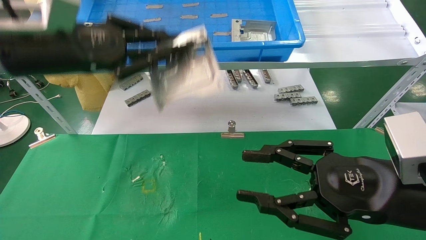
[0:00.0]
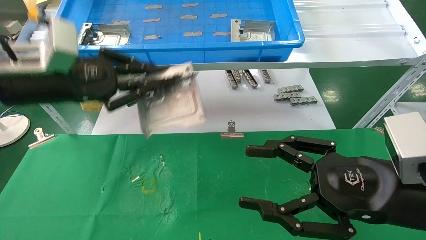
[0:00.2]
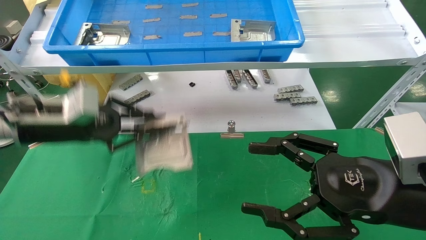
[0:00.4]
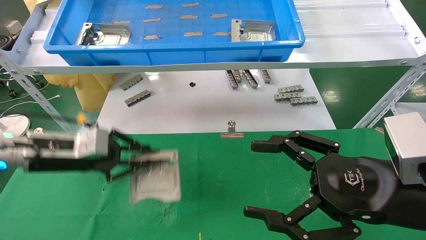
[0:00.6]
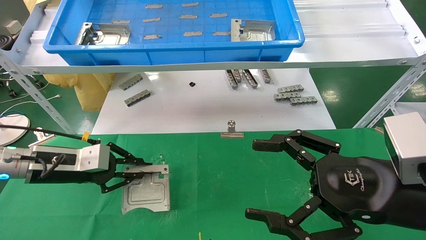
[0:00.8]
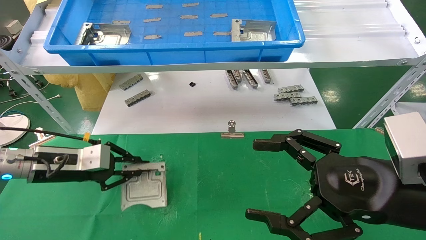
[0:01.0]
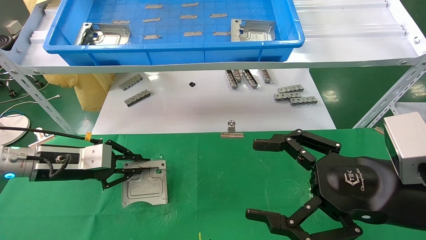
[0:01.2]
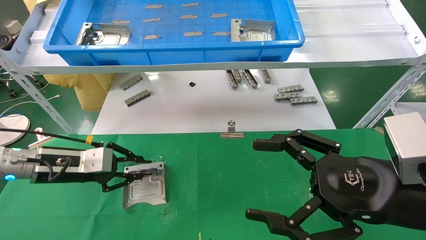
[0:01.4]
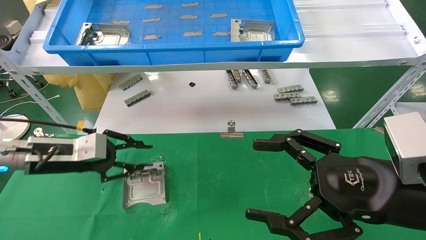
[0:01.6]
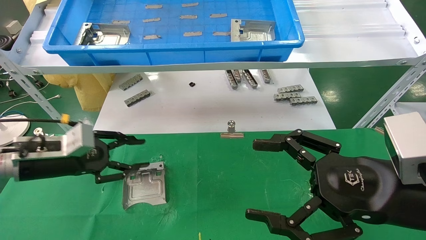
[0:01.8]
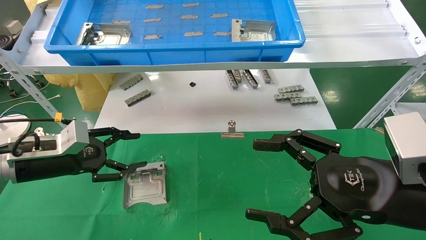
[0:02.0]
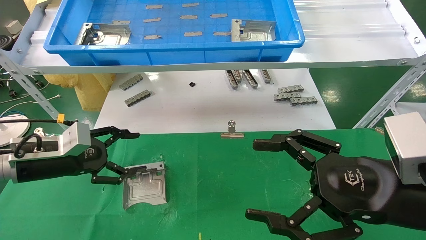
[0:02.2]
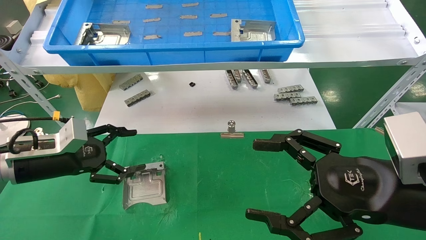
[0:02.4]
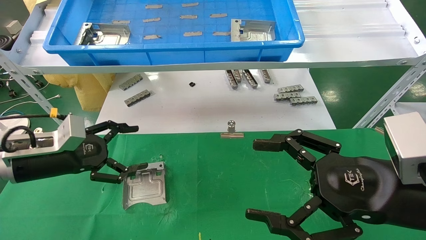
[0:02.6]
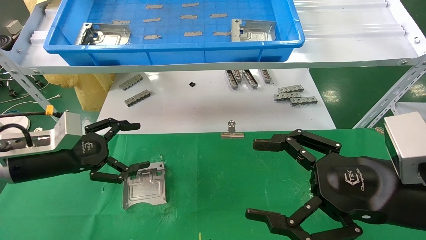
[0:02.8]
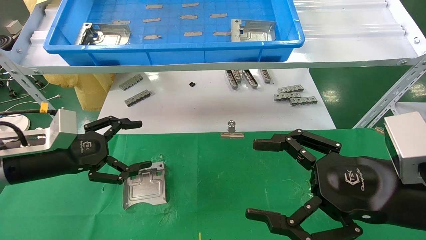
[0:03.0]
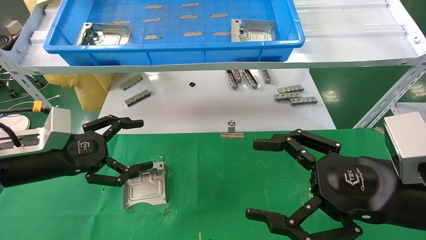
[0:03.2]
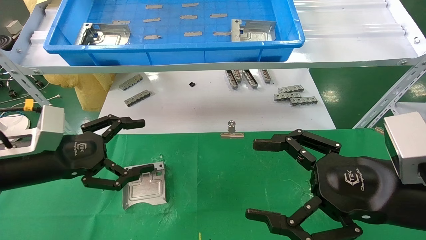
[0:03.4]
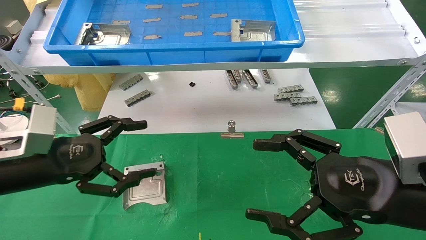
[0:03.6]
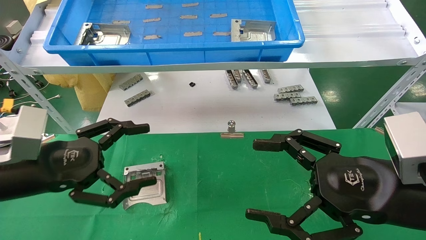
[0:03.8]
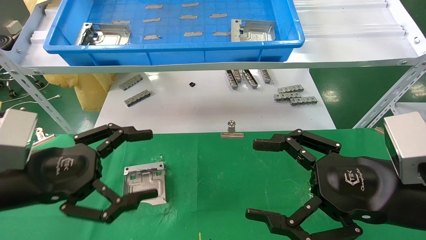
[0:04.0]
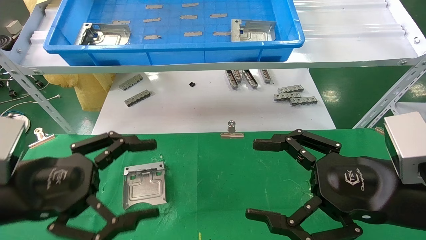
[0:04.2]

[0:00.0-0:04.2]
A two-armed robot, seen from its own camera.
Task of the whole recording: use the mechanical arm to pick up the parts and place them on the table.
Step, 0:00.0 to 0:01.6: Place the hard drive bracket into the box.
0:00.0 to 0:01.4: The left gripper is displaced downward by approximately 20 cm. The right gripper opens its fingers.
0:01.4 to 0:02.8: The left gripper opens its fingers.
0:02.8 to 0:04.2: The left gripper shifts about 10 cm backward.

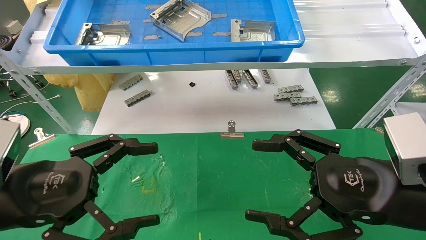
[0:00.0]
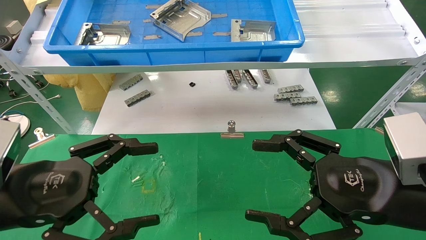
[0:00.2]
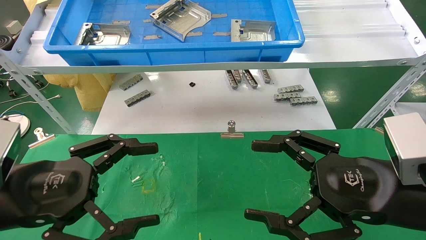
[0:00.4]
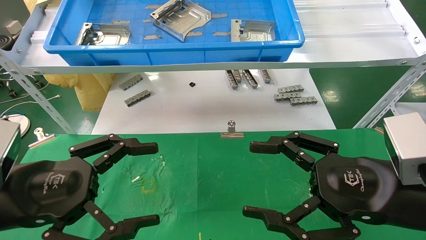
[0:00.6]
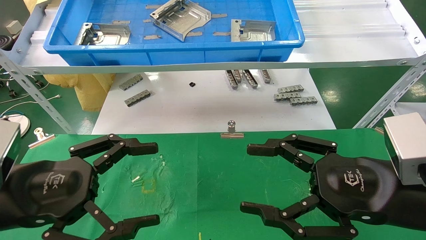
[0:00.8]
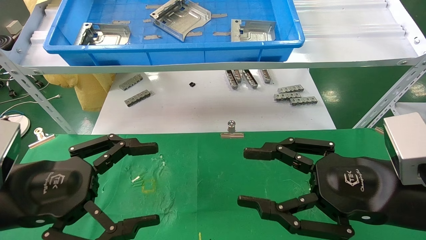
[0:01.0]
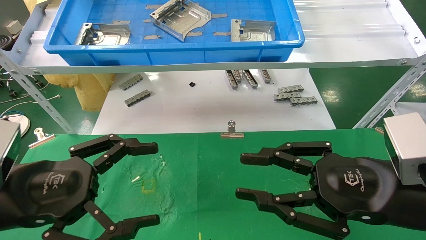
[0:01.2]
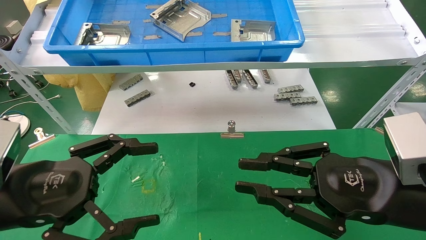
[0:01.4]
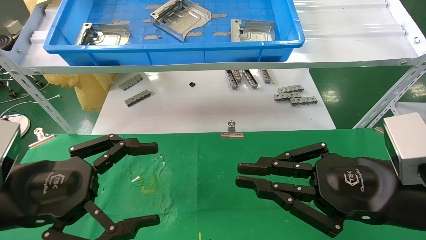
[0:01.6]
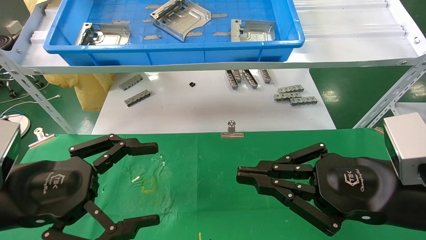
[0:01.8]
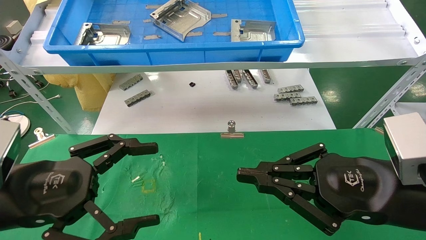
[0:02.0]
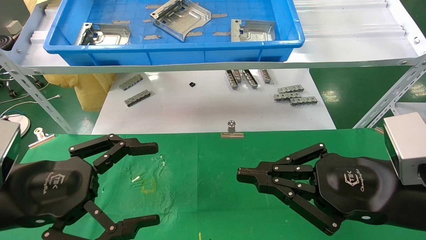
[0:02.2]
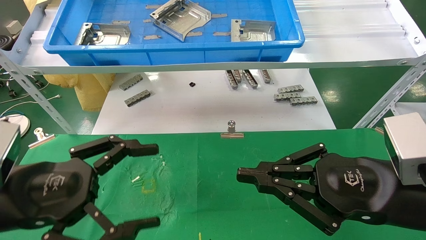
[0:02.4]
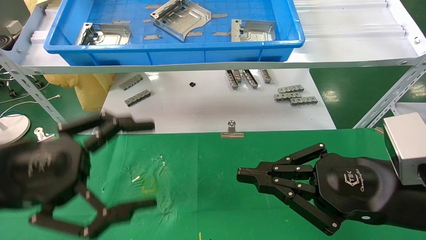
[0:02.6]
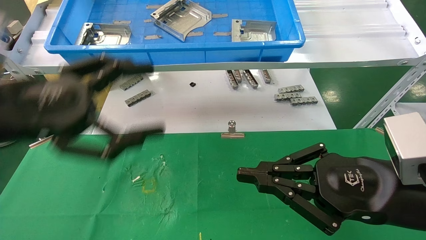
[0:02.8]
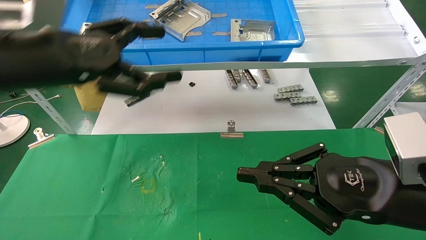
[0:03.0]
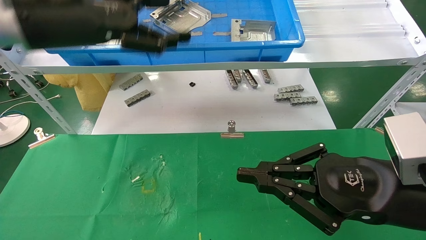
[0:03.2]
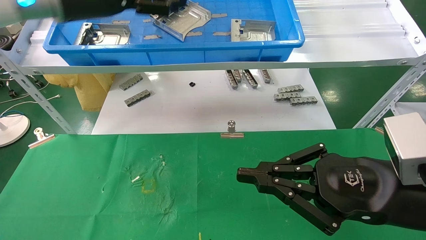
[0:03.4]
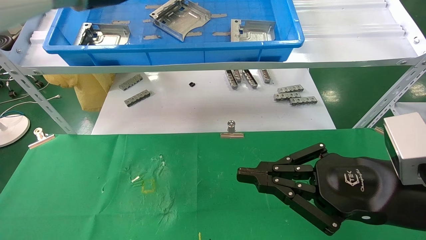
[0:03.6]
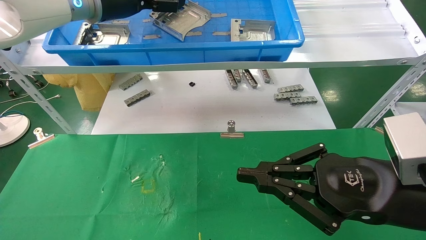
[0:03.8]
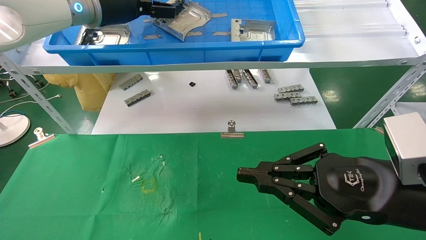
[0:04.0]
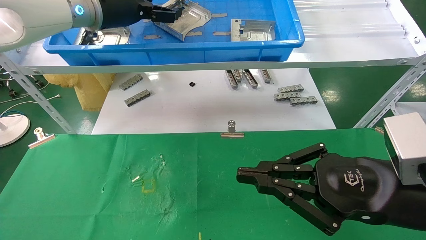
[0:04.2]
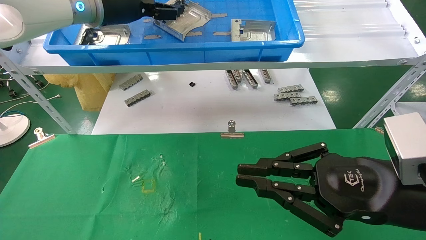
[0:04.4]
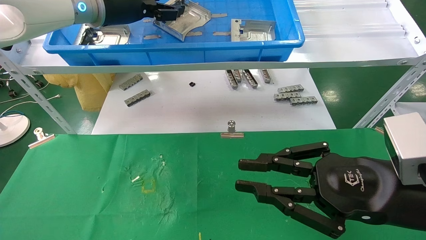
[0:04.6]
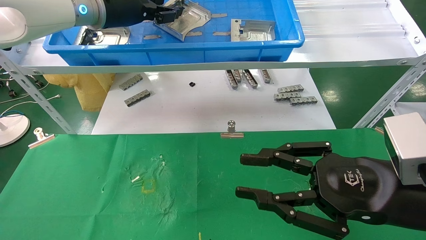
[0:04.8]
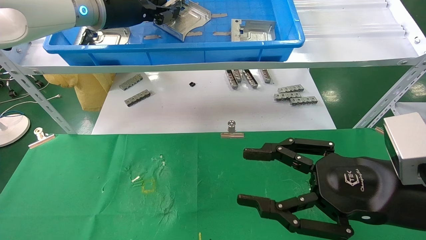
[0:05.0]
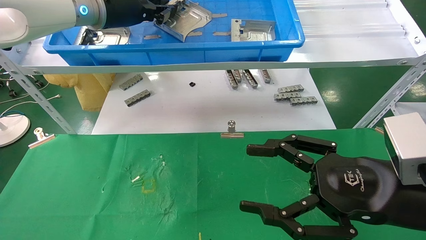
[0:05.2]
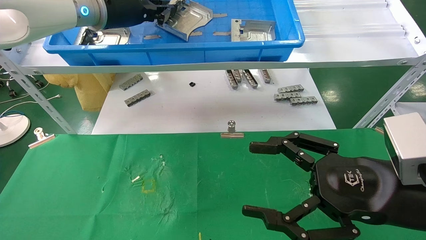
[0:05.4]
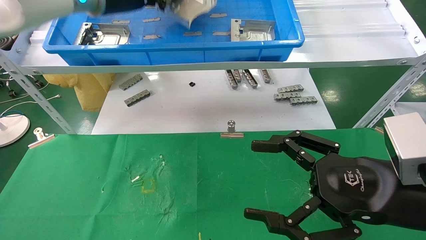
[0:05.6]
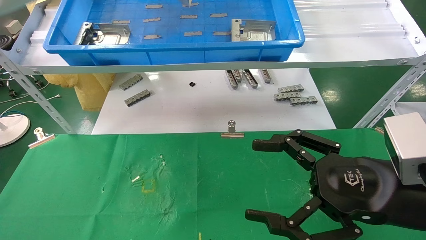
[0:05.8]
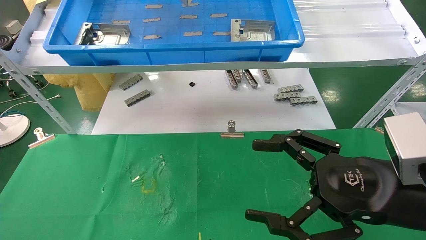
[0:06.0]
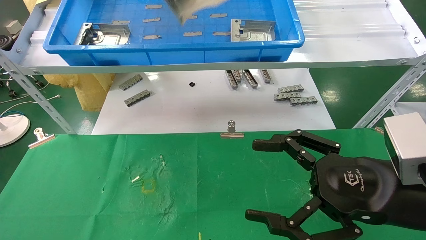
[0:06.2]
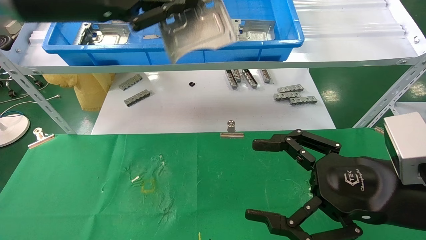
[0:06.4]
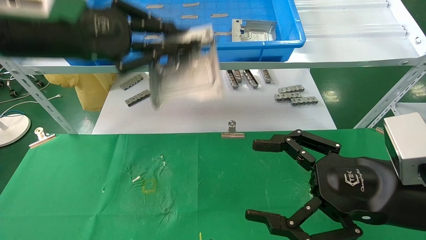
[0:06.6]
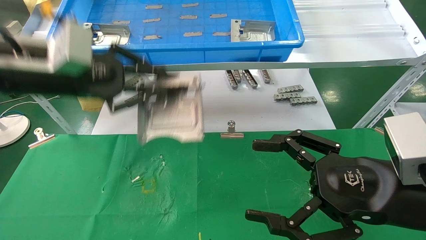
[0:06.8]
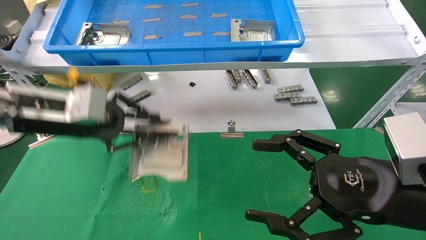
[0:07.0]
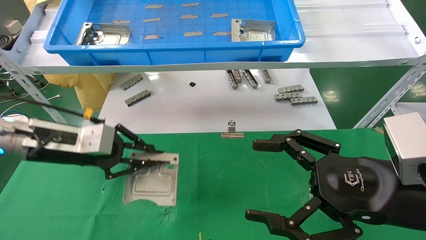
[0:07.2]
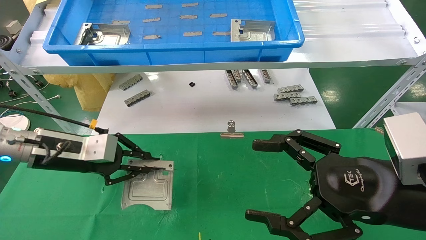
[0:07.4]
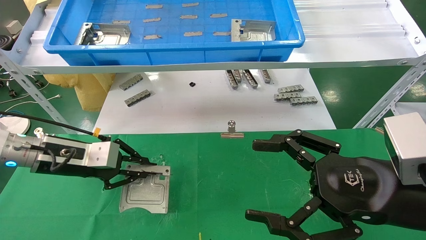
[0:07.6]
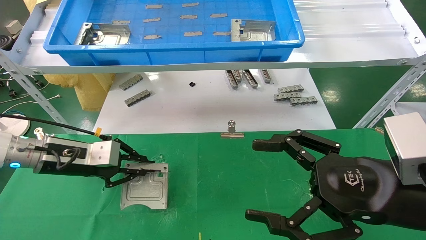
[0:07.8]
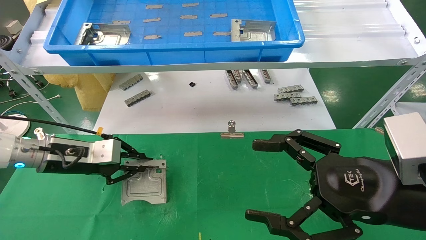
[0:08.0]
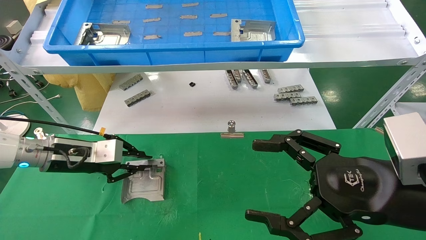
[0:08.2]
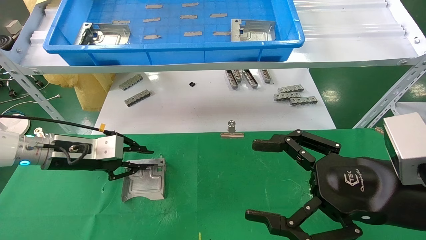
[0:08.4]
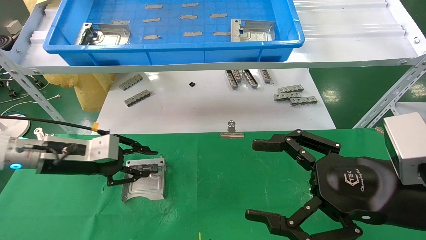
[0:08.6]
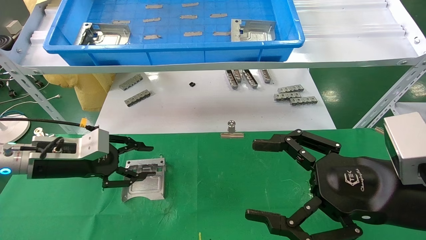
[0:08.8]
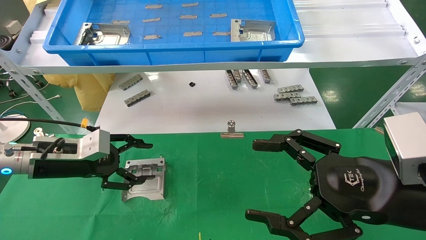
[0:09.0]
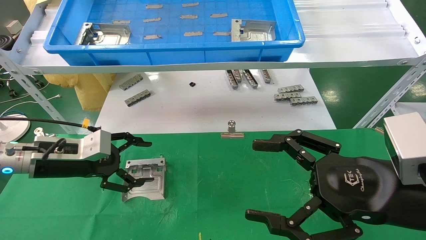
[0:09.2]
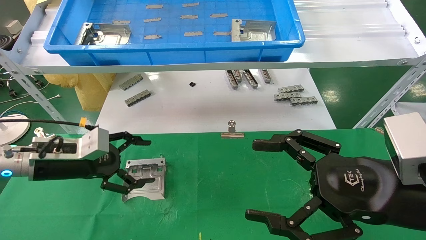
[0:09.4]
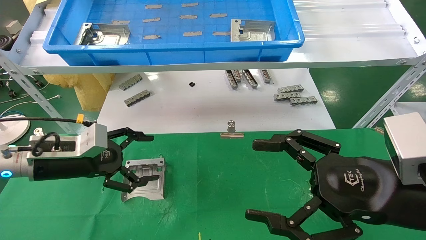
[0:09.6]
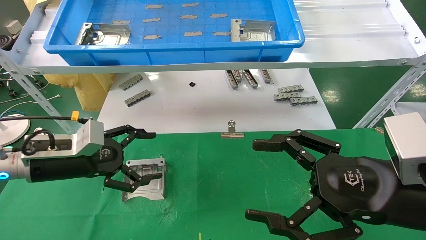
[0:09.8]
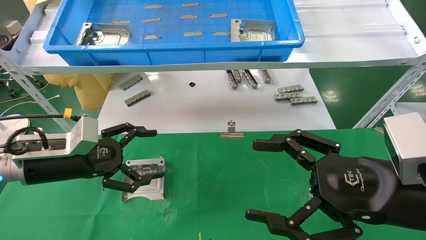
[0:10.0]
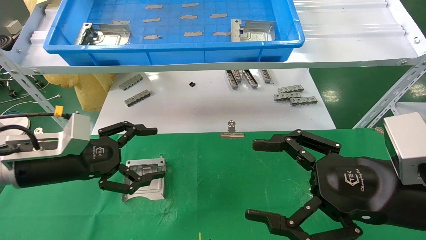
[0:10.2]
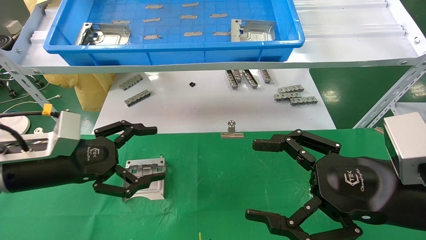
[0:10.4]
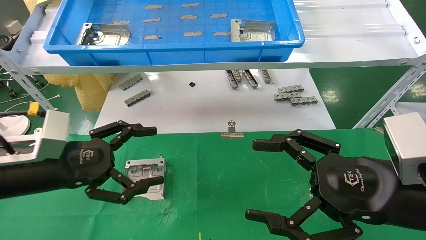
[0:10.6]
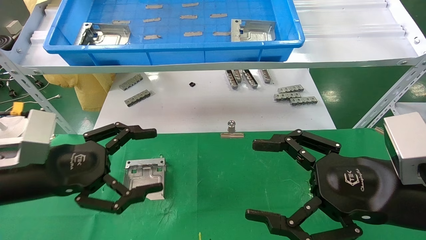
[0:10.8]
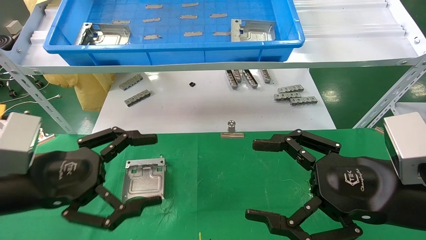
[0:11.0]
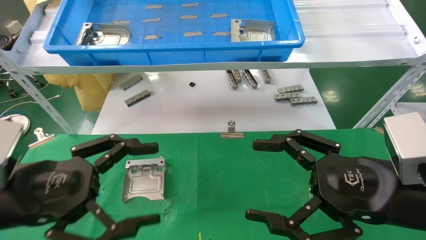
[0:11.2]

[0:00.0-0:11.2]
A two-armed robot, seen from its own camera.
Task of the whole recording: use the mechanical arm to pick up the parts and place them on the table.
Step, 0:02.4 to 0:05.2: Pick up the hard drive bracket from the feeding area.
Step, 0:05.4 to 0:08.8: Place the hard drive bracket into the box.
0:00.0 to 0:01.6: The right gripper closes.
0:01.6 to 0:03.2: The left gripper shifts roughly 25 cm upward and forward.
0:03.2 to 0:04.8: The left gripper goes approximately 10 cm forward, and closes up.
0:04.8 to 0:06.4: The left gripper heads backward, covering roughly 10 cm, and closes up. Meanwhile the right gripper opens up.
0:06.4 to 0:08.0: The left gripper moves downward, approximately 25 cm.
0:08.0 to 0:09.6: The left gripper opens.
0:09.6 to 0:11.2: The left gripper shifts some 15 cm backward.

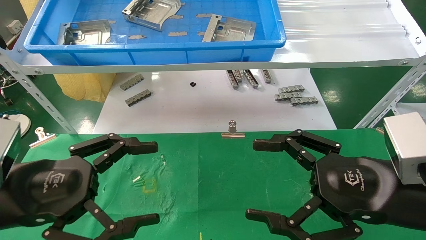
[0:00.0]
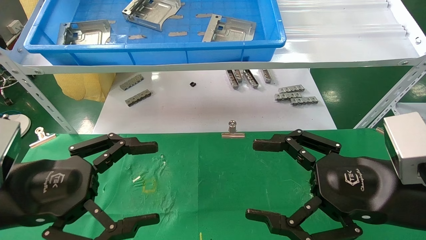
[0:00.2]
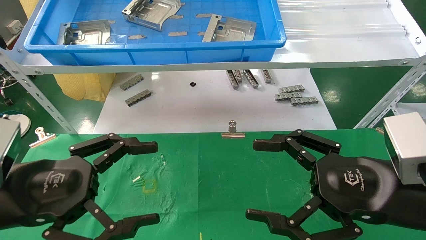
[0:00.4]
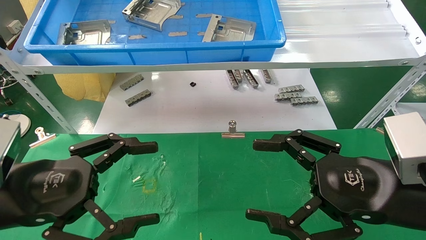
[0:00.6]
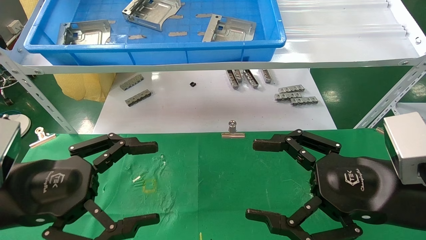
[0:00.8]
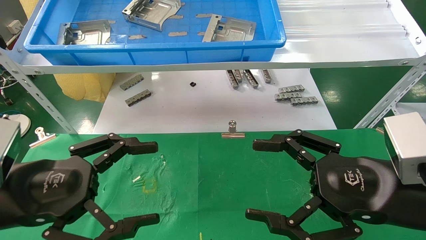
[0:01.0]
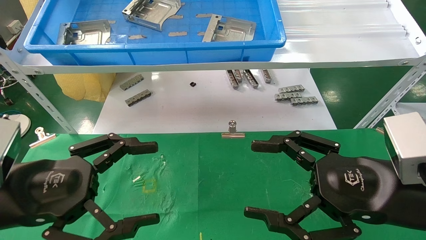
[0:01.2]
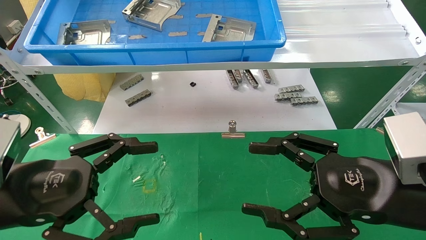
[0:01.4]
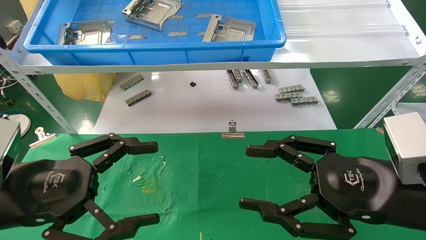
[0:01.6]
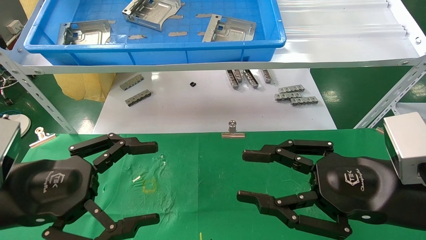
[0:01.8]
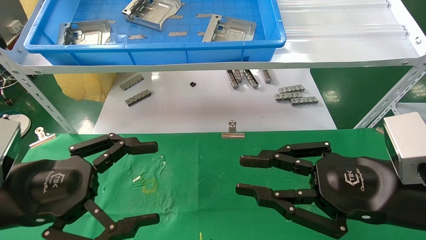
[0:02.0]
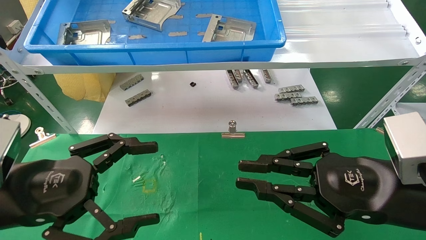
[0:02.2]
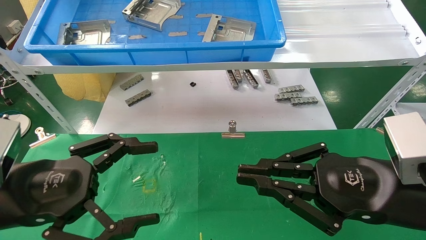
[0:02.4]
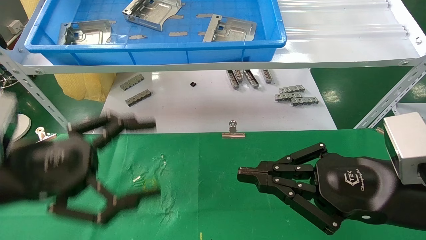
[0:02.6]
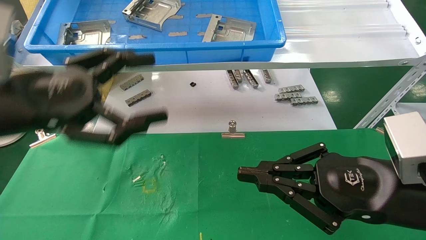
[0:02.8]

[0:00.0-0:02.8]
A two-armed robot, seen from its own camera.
Task of the whole recording: use the mechanical arm to pick up the parts and place them on the table.
0:00.0 to 0:01.4: Both grippers stay about where they are.
0:01.4 to 0:02.8: The left gripper goes roughly 10 cm upward and forward; the right gripper closes its fingers.
